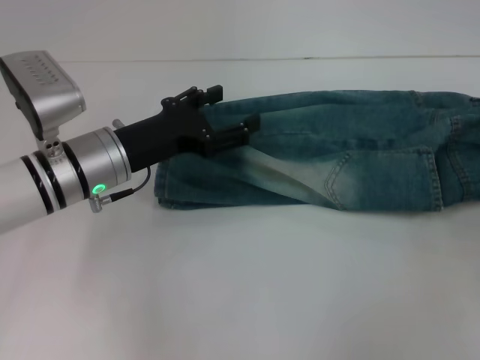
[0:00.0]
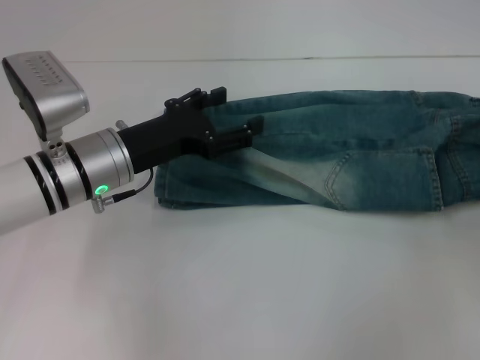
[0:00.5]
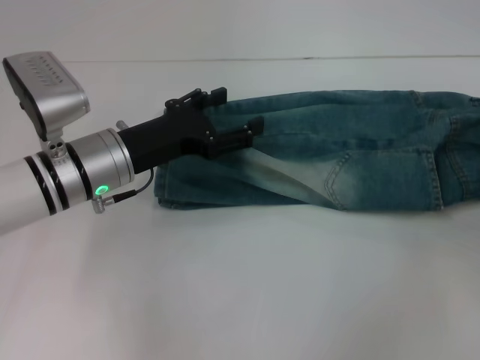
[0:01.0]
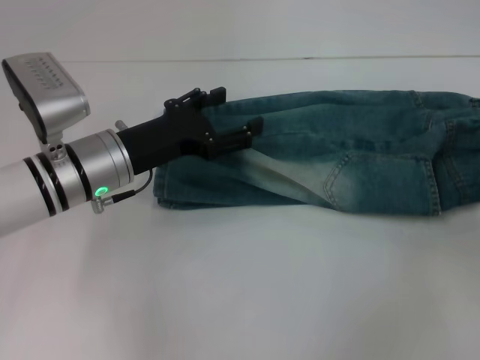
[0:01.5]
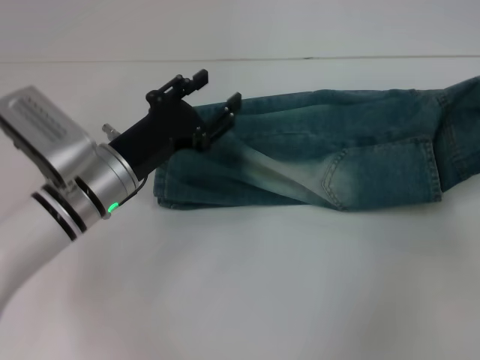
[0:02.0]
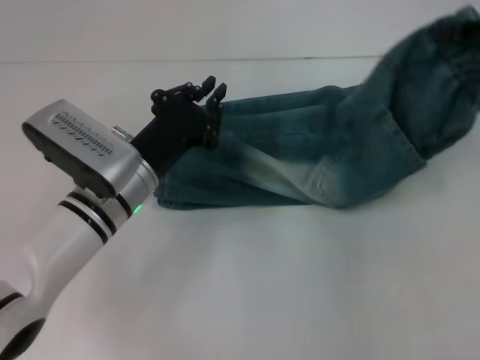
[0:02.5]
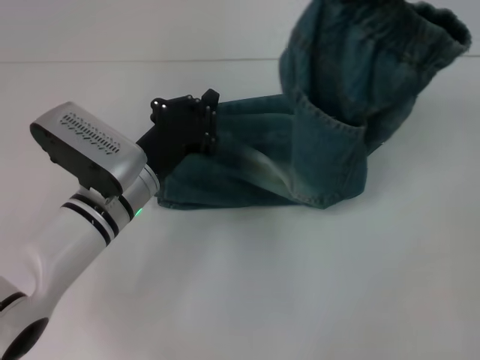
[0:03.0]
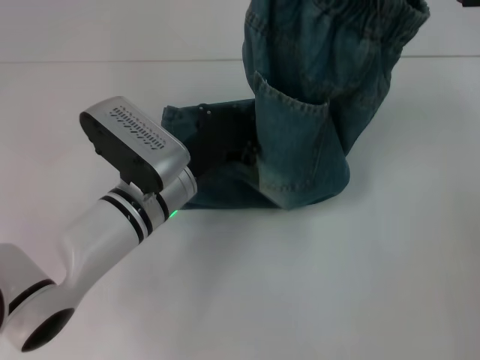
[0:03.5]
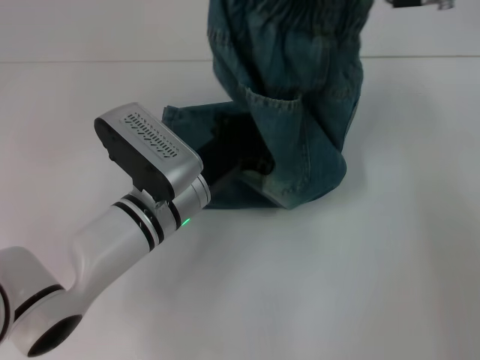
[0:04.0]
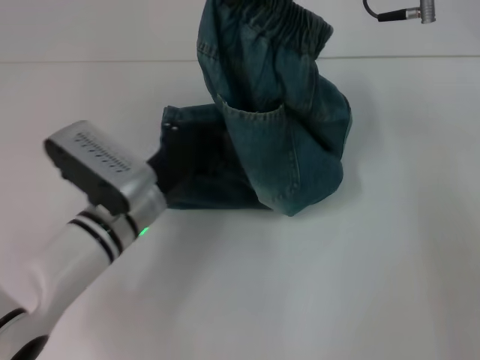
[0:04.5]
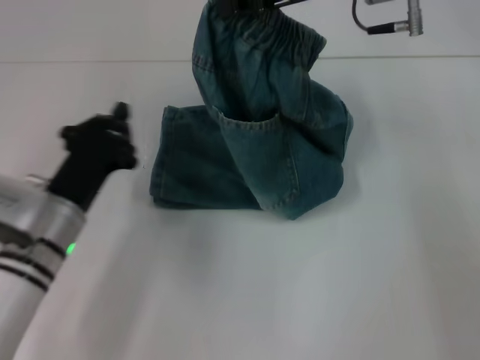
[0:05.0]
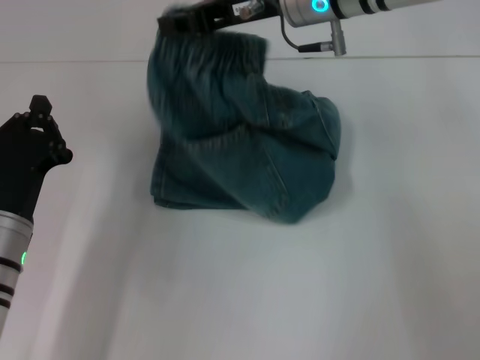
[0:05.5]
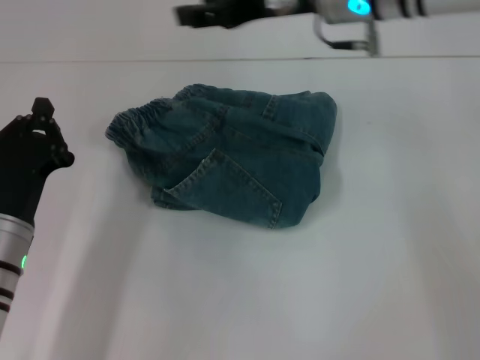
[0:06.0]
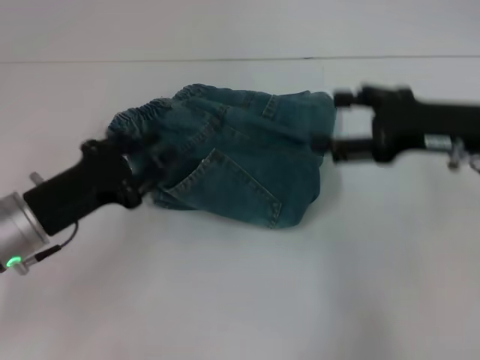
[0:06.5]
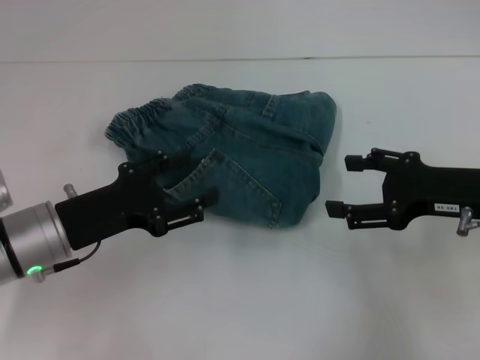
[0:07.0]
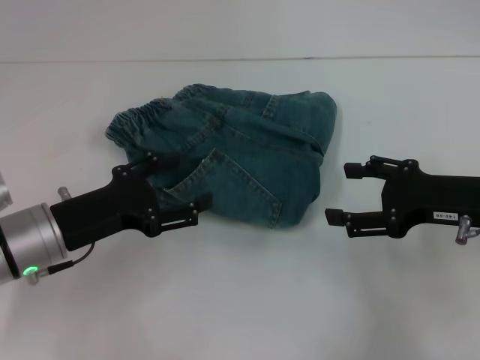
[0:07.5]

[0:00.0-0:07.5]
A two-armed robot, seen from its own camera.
Step, 0:01.5 to 0:04.0: Press the middle of the pants with your left hand.
Step, 0:04.5 to 0:05.5: Fold to the left with your right hand.
0:00.0 to 0:02.0: The right gripper moves to the left, approximately 5 cm, and closes up.
0:02.0 to 0:04.0: The right gripper shifts some 25 cm to the left and upward, while the left gripper travels to the right by approximately 5 cm, and closes its fingers.
0:04.0 to 0:05.5: The left gripper is displaced to the left and backward by about 15 cm; the right gripper travels to the left and downward by approximately 10 cm.
0:05.5 to 0:07.5: The right gripper moves to the right, backward and downward, roughly 25 cm, and opens. The left gripper opens its fingers.
